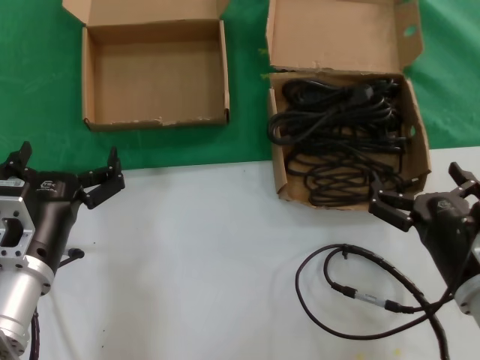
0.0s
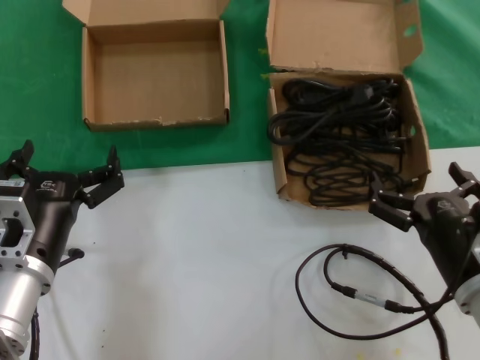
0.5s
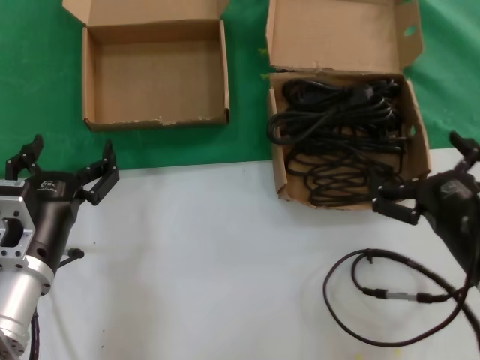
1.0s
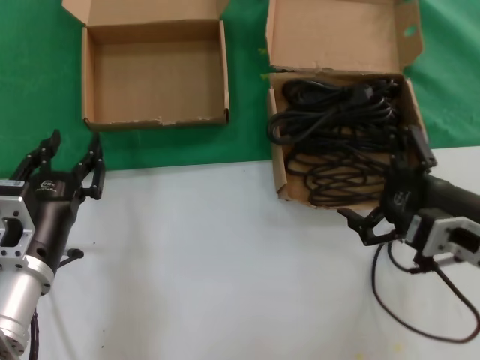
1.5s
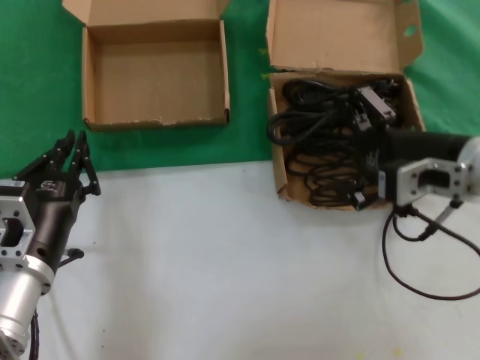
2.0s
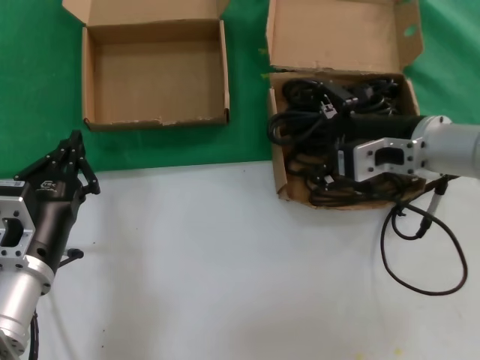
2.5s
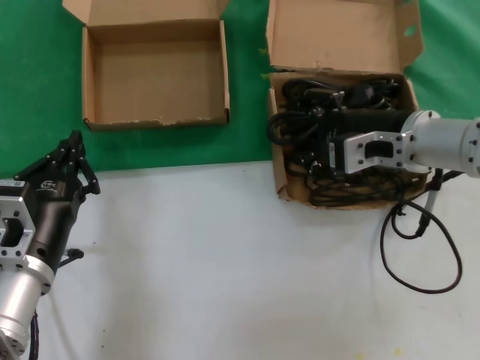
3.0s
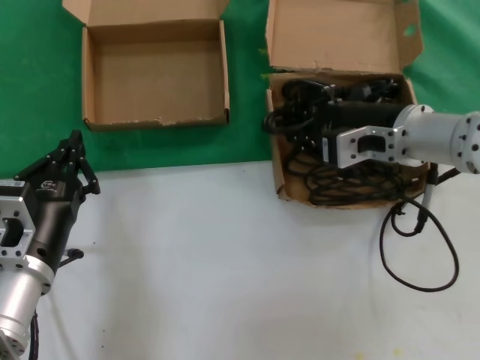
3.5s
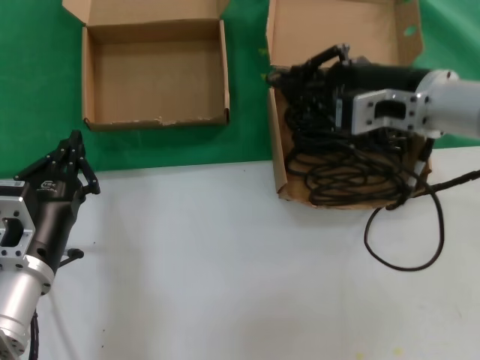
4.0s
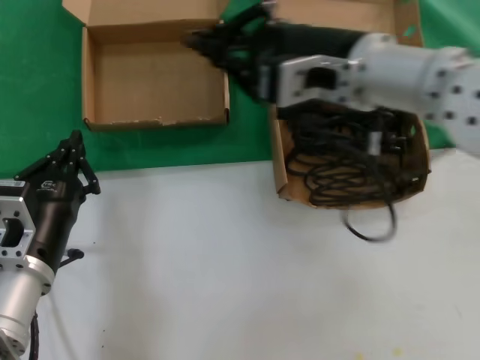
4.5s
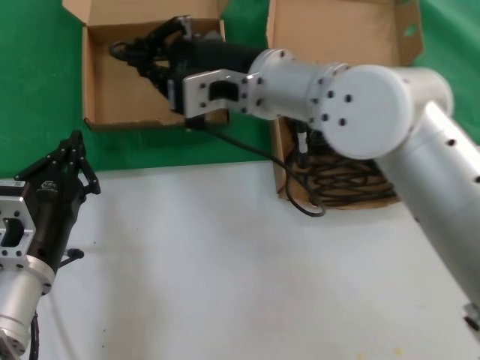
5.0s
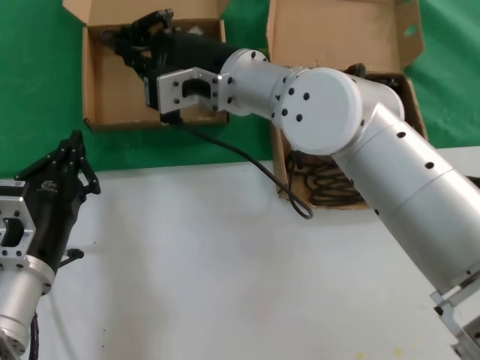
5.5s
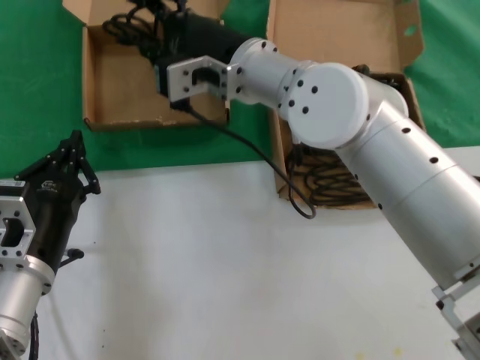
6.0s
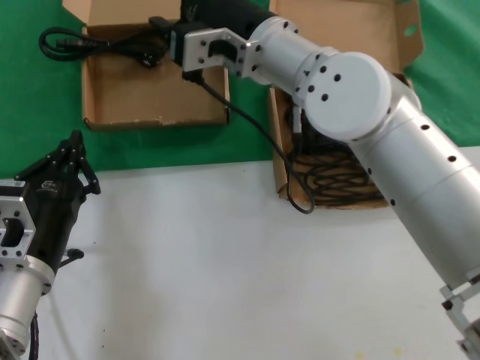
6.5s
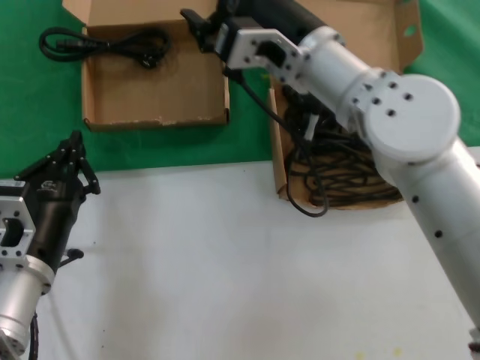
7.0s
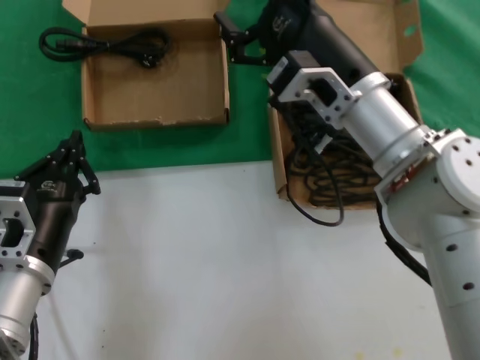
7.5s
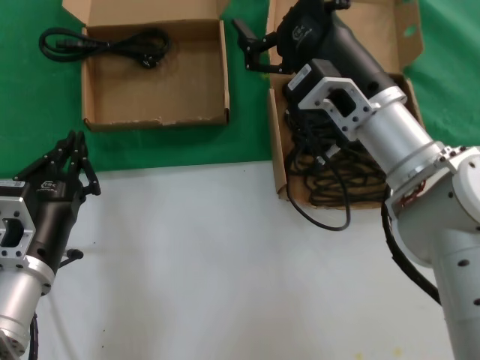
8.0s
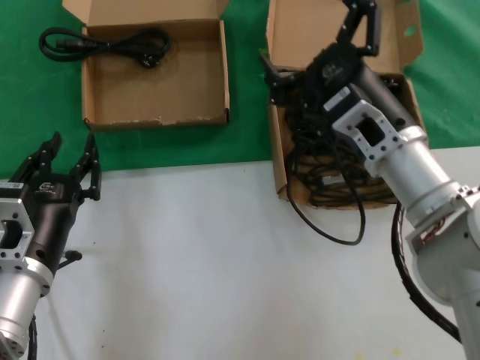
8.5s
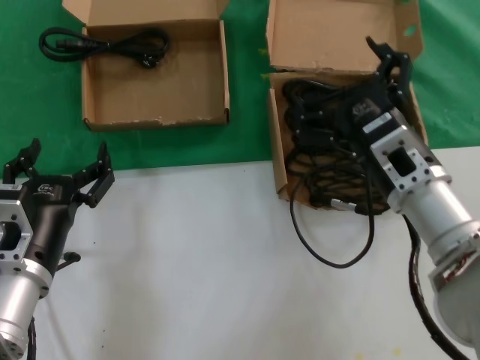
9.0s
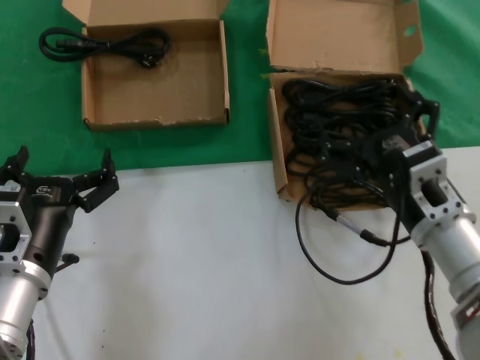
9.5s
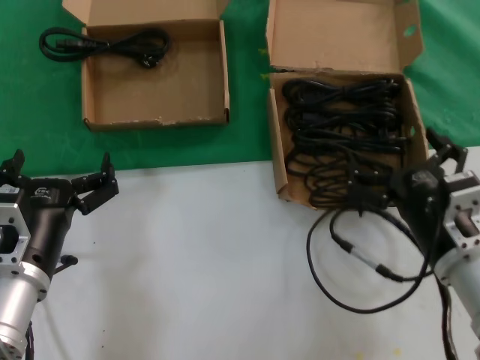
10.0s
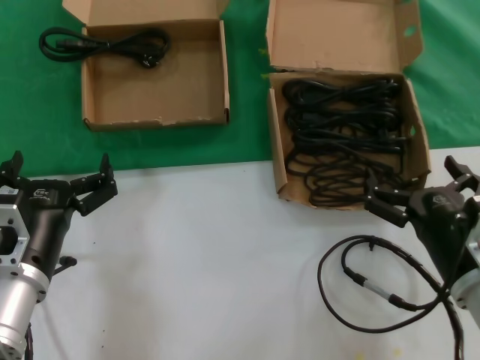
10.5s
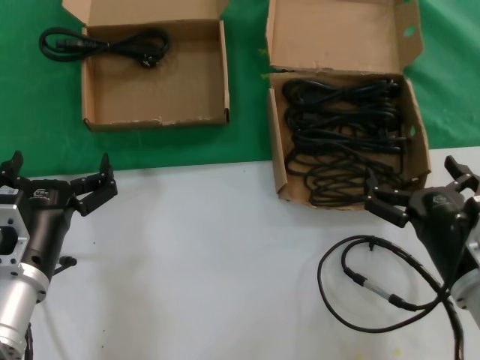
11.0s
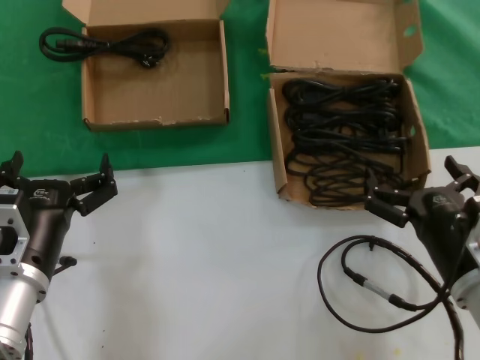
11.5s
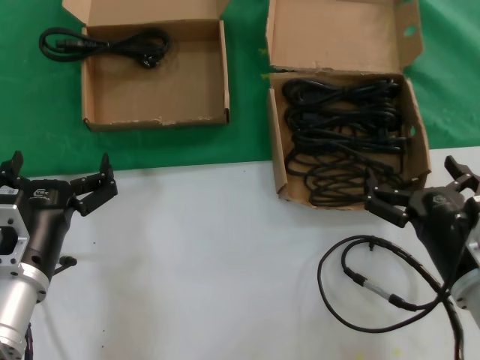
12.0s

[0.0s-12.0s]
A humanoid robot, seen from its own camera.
Task of the whole recording: take the parts from the box containing them and put them into an empty box.
Step, 0.0s to 3.5s: Grasp the data cable.
Step, 4.0s to 6.0s: Place the data cable in the another box.
0.0s to 2.0s: The right hand heads upward and forward, covering about 20 cm.
2.0s to 4.0s: The right hand travels forward by roughly 5 cm.
4.0s to 6.0s: The right hand goes approximately 20 cm to the left.
6.0s to 8.0s: The right hand is displaced to the right, downward and backward by some 15 cm.
8.0s to 10.0s: The right hand is displaced downward, backward and to the right by about 20 cm.
10.0s to 12.0s: The hands stay close to where they were, moving slightly.

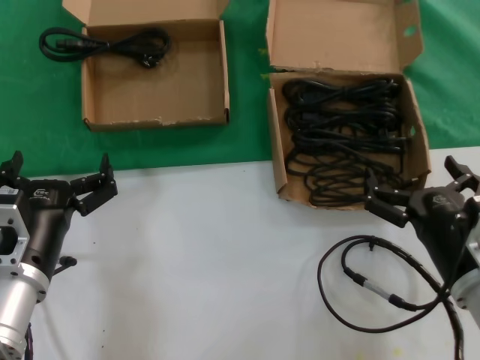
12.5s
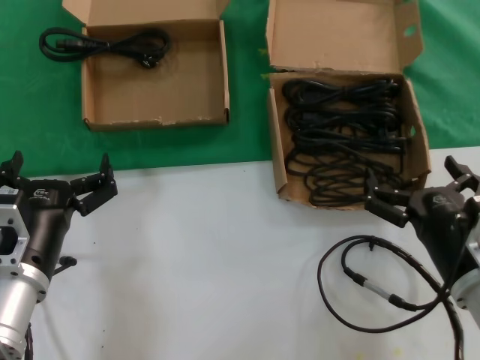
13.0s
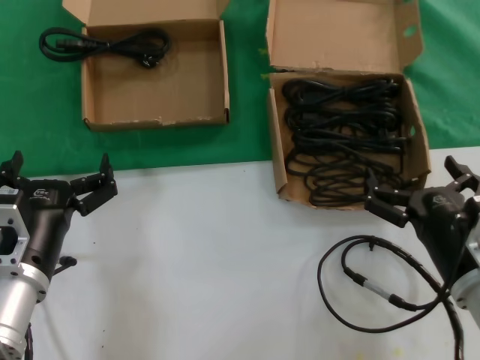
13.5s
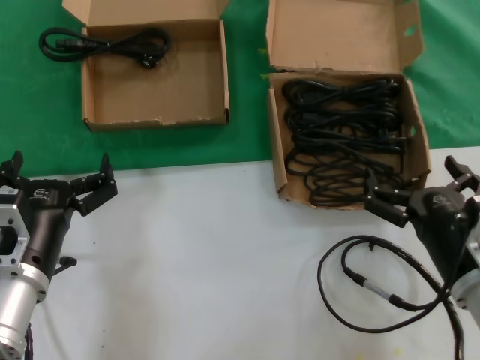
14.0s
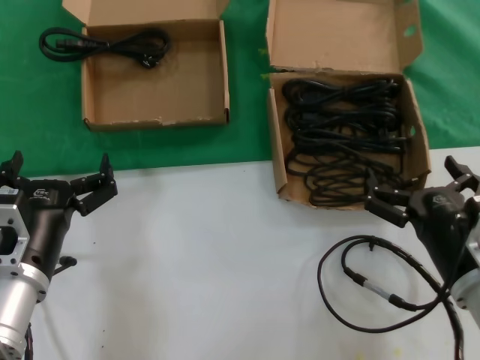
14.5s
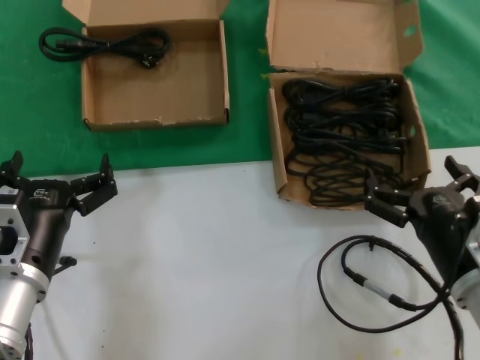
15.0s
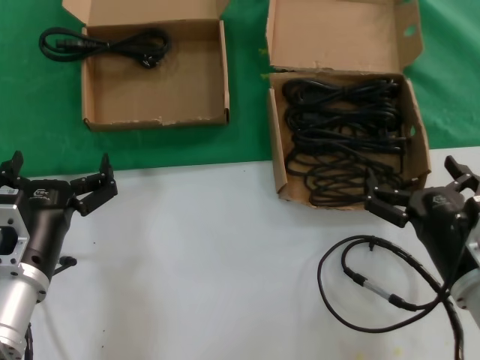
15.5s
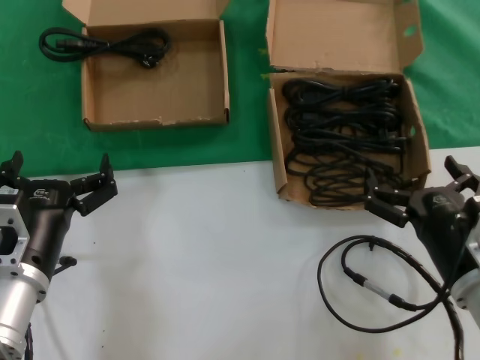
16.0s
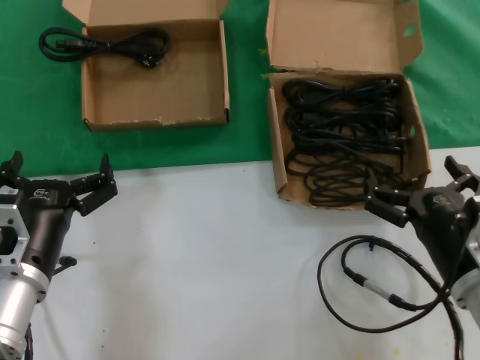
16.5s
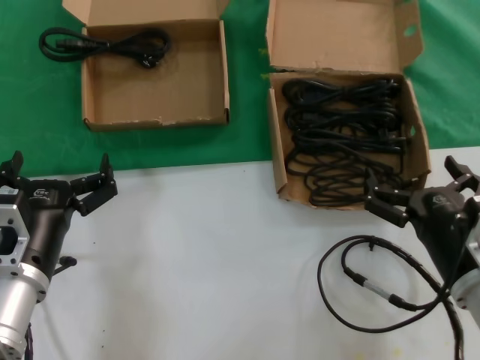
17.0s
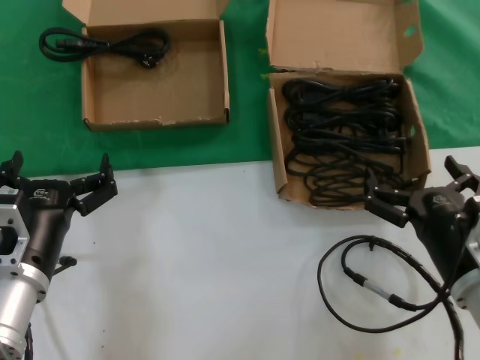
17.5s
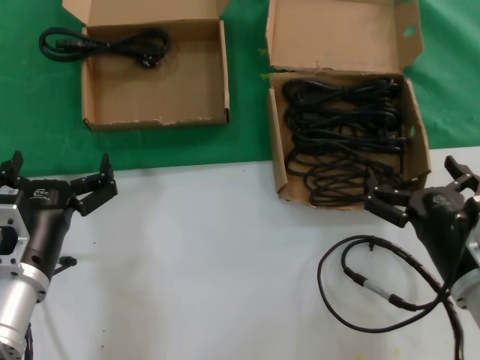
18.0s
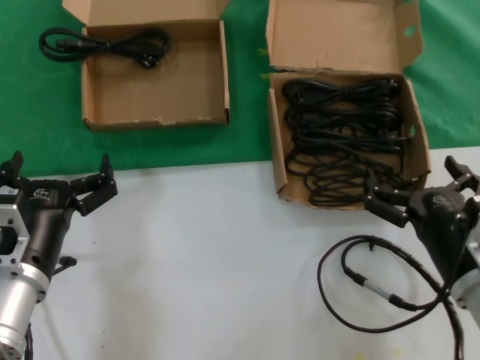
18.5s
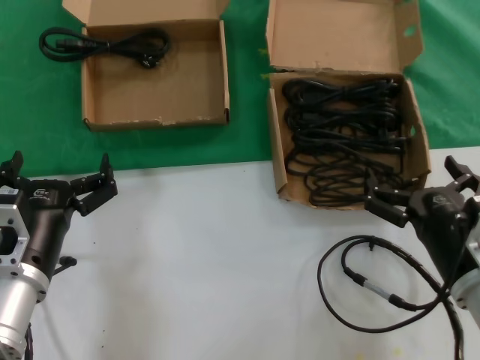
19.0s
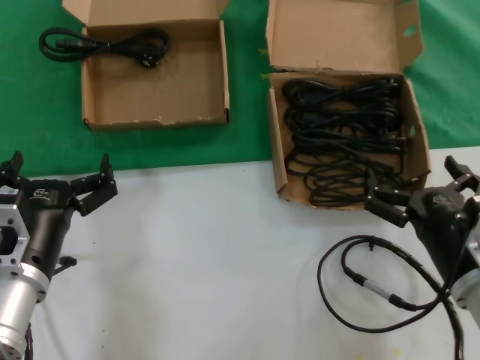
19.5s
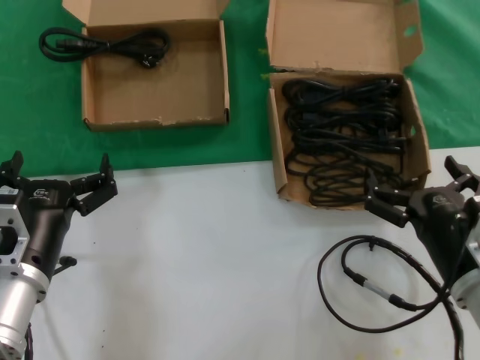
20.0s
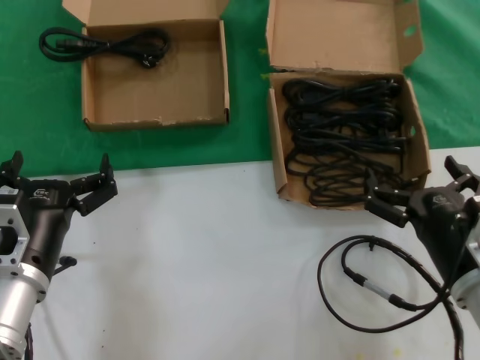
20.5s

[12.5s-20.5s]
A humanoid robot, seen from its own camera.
Task of the whole recording: take the parts from the box containing them and put them into an empty box.
12.5s to 20.5s: Neither hand changes place.

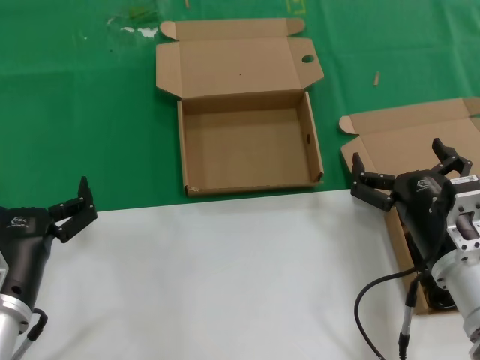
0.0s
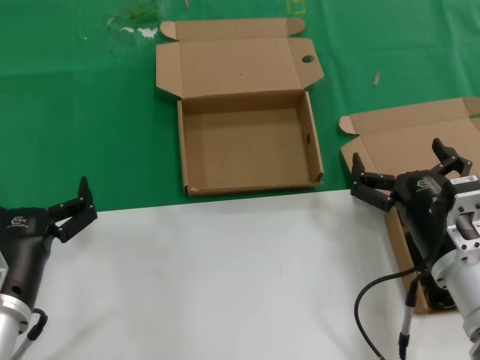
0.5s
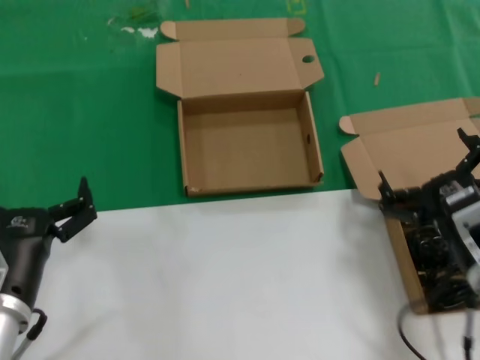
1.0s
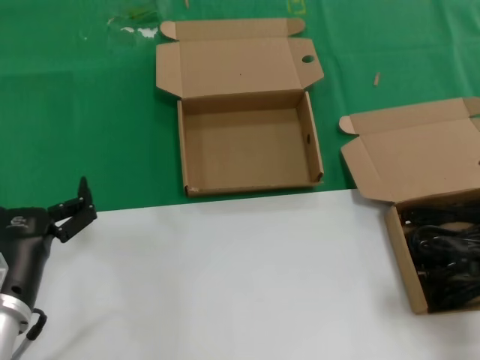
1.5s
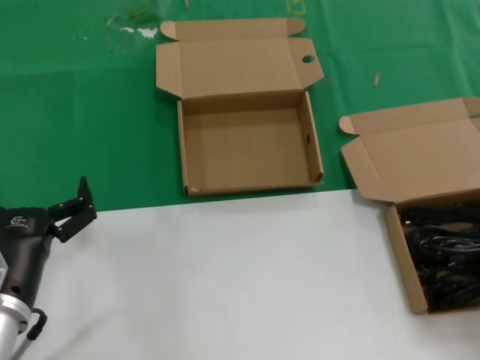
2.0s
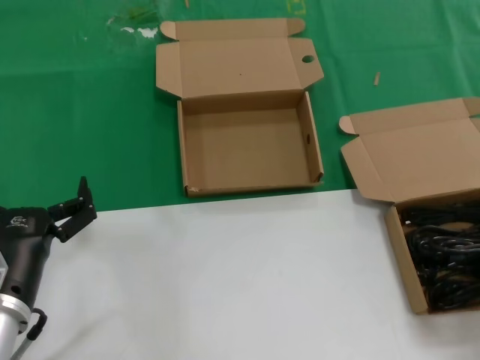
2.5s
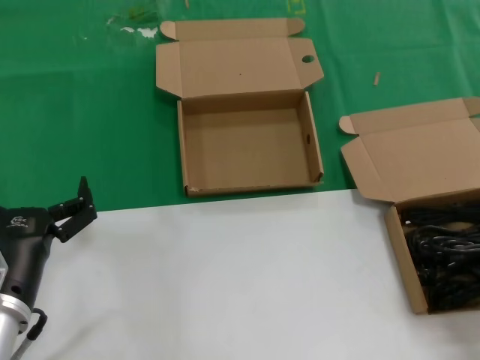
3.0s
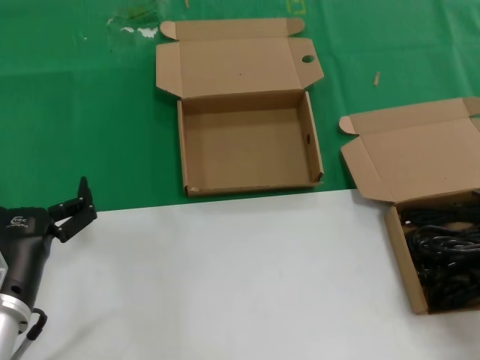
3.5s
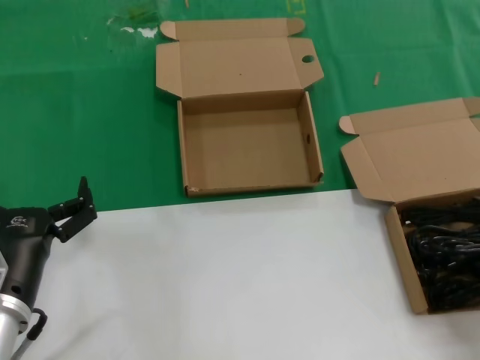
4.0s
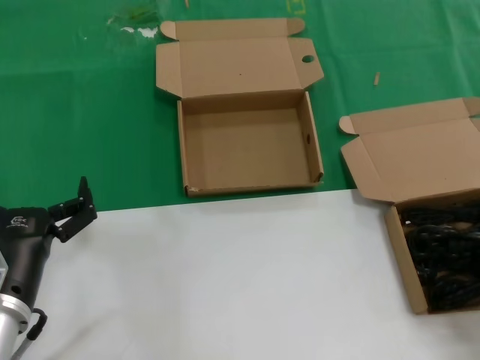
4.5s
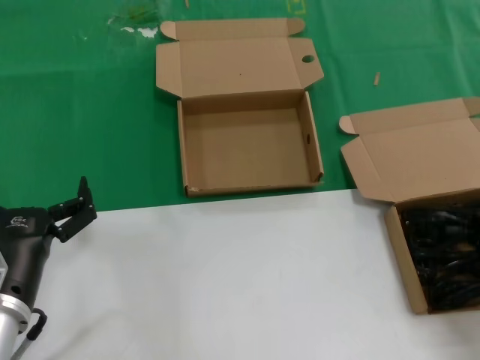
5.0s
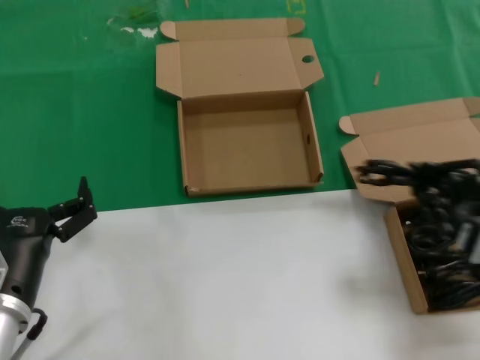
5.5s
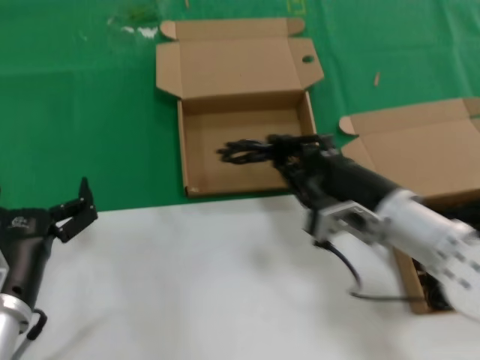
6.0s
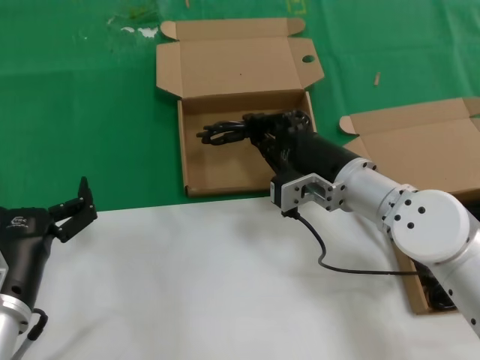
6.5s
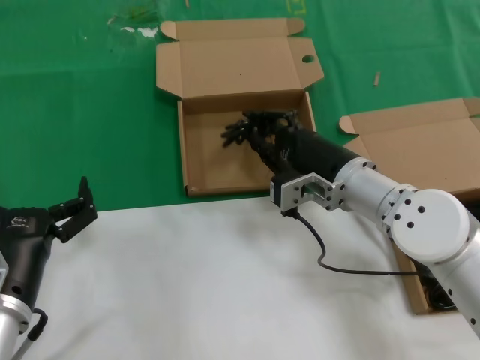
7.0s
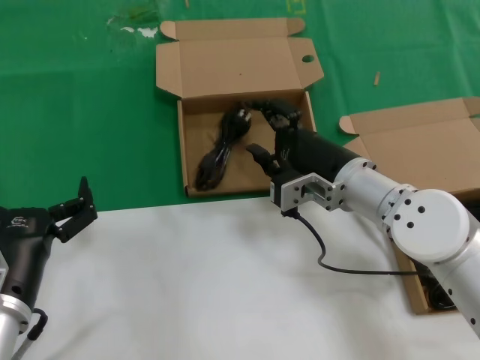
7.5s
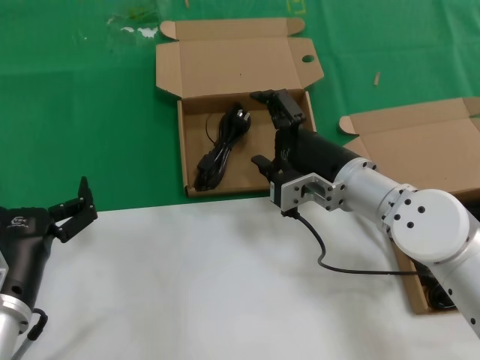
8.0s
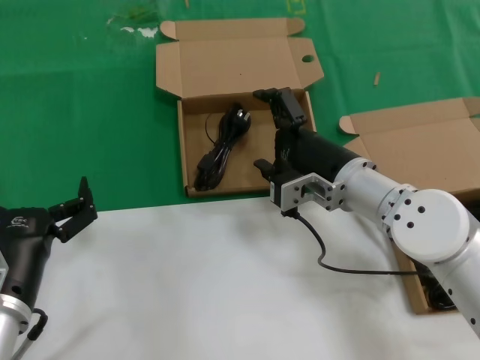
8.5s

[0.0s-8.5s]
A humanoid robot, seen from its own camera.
Task of the whole recording: take the parts from the box containing them and put them into an empty box.
Step, 0.0s to 4.5s: Grasp the data cable.
Step, 5.0s to 7.5s: Place the data cable in the another box.
0.0s to 2.0s: The right hand moves to the right, upward and backward, roughly 20 cm.
4.0s to 6.5s: The right hand heads to the left and forward, covering approximately 30 cm.
6.5s to 8.5s: Both hands stay put.
